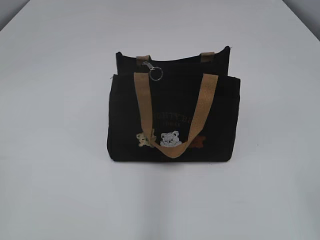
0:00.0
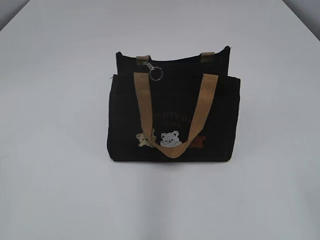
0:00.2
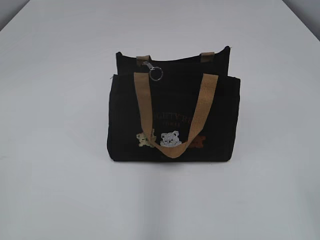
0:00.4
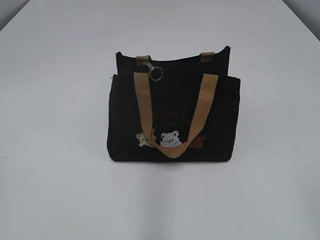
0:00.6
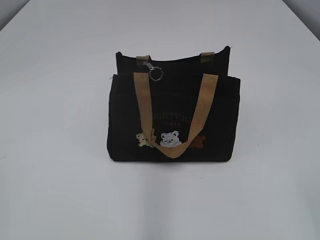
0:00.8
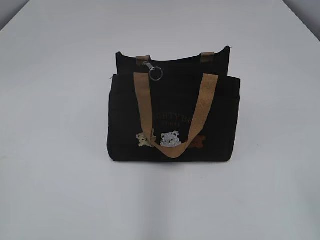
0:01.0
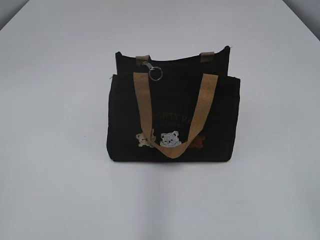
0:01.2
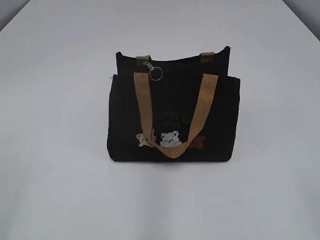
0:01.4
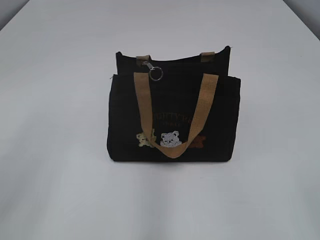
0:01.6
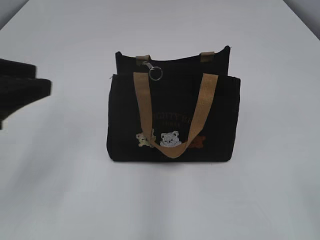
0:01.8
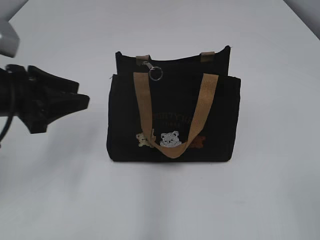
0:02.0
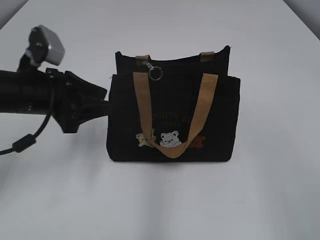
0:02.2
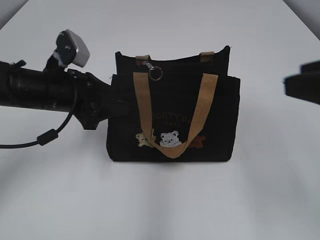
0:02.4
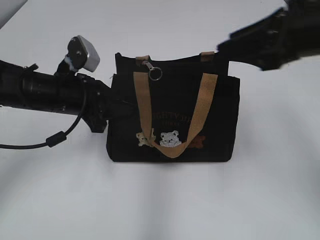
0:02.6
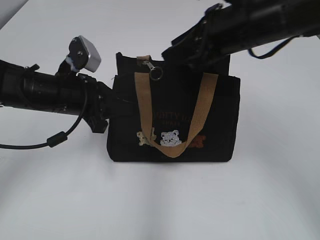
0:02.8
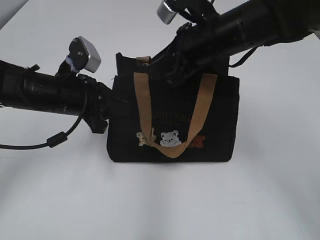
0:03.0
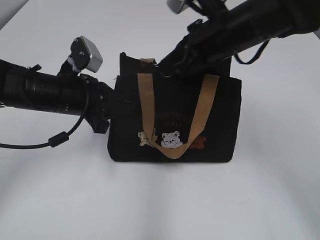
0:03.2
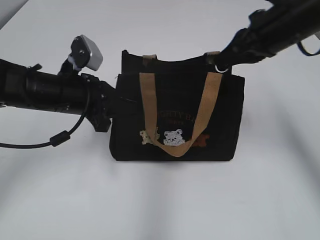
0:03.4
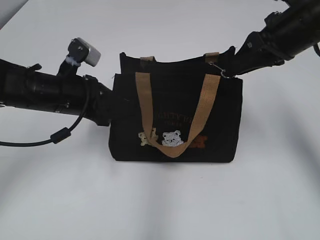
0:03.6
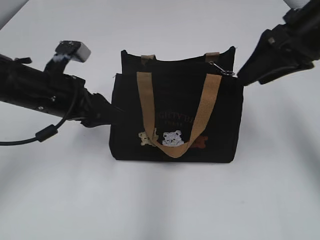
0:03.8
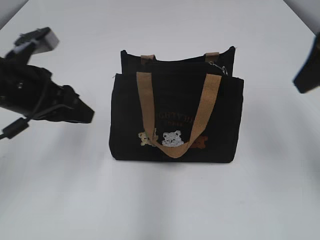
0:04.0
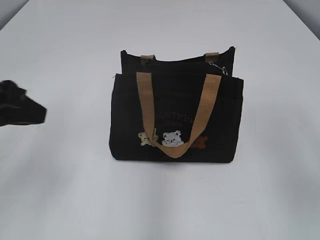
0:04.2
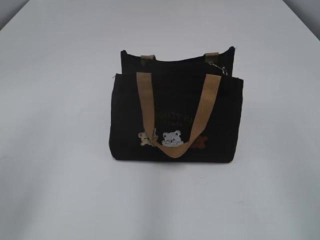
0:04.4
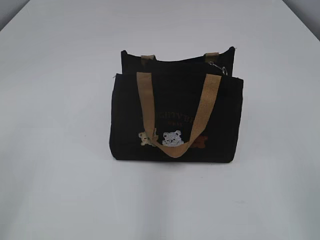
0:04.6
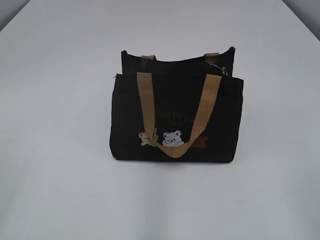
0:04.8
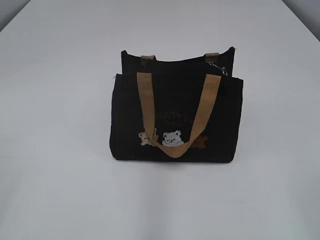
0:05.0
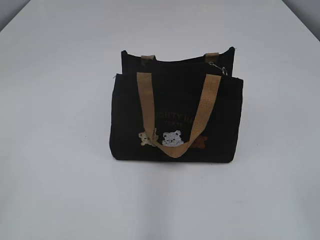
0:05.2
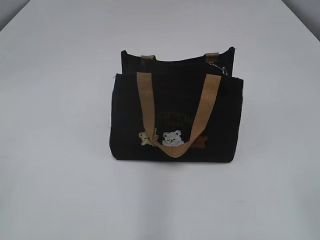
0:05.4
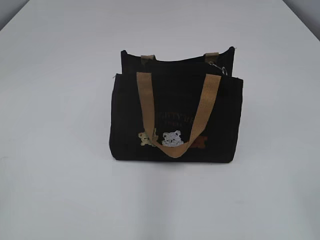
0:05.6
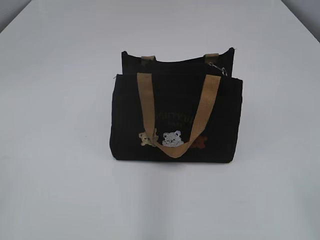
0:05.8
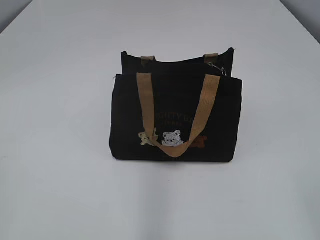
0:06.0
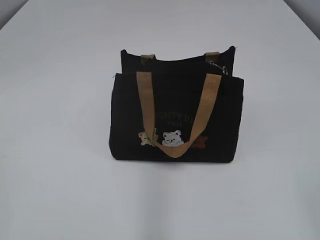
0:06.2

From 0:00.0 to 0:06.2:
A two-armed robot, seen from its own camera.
Step, from 0:00.0 to 0:03.4: Zip up the bag with your right hand.
From 0:01.6 to 0:03.2: The right gripper shifts about 40 cm forward and to the left, and closes; the left gripper is displaced forward, downward and to the right by about 35 cm, and closes up.
From 0:03.2 to 0:04.6: The left gripper heads backward, upward and to the left, covering approximately 30 cm, and opens up; the right gripper shifts roughly 30 cm backward and to the right, and opens.

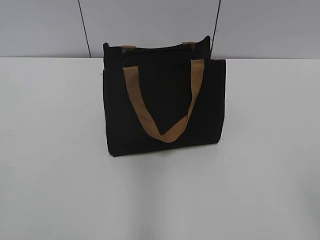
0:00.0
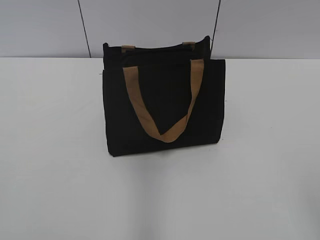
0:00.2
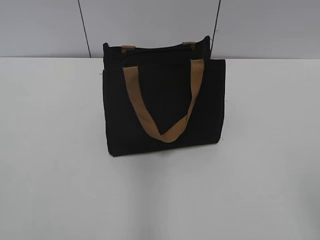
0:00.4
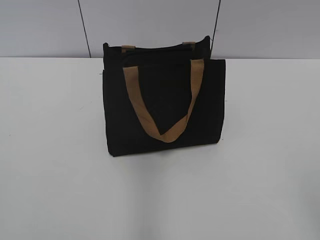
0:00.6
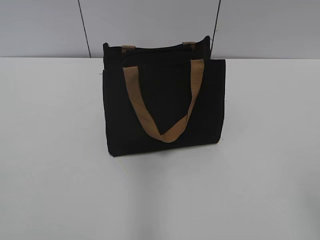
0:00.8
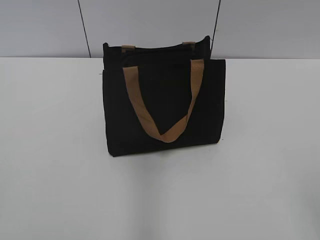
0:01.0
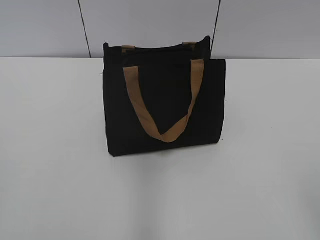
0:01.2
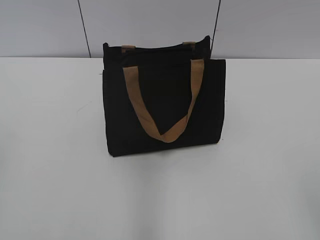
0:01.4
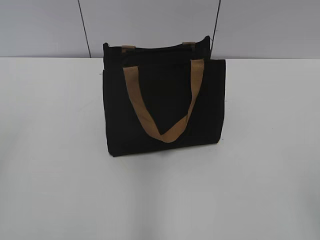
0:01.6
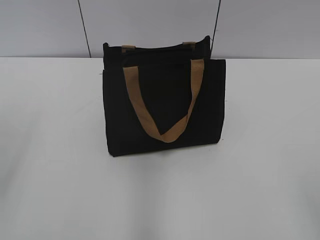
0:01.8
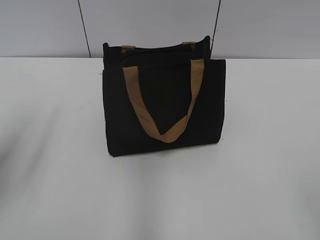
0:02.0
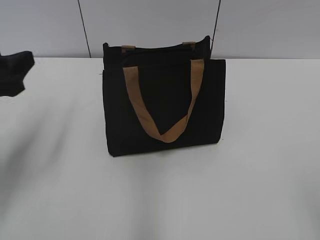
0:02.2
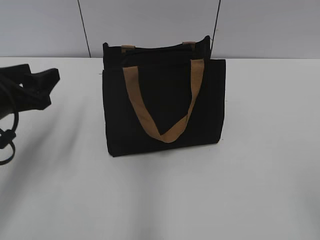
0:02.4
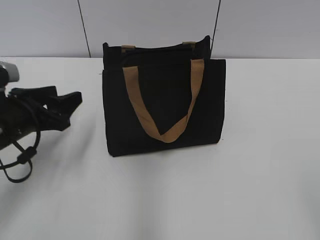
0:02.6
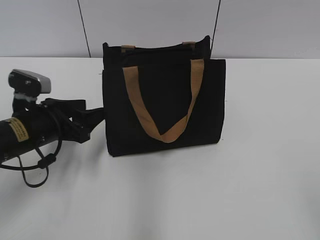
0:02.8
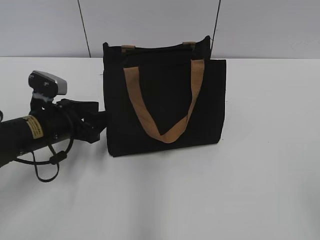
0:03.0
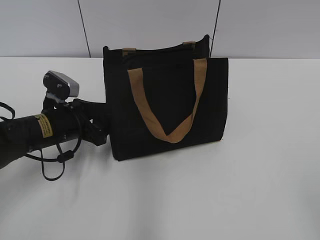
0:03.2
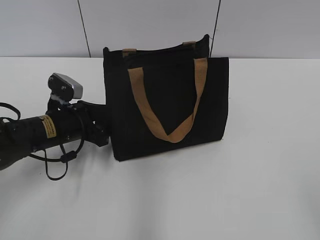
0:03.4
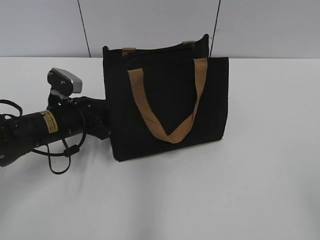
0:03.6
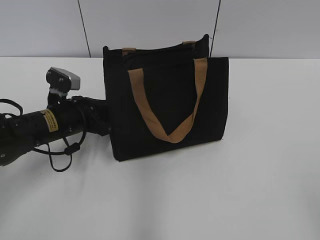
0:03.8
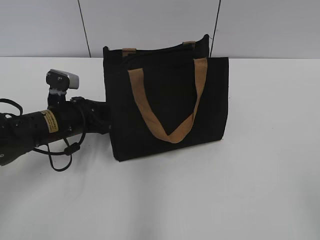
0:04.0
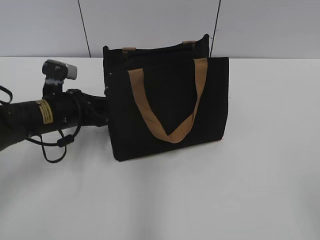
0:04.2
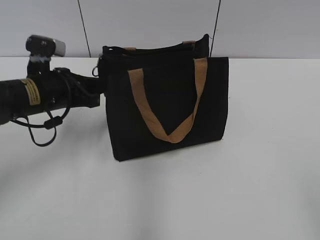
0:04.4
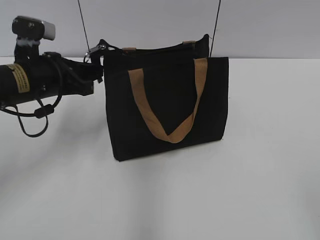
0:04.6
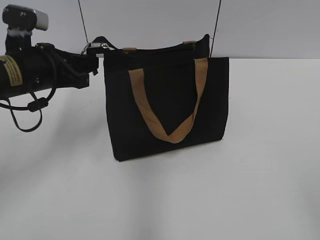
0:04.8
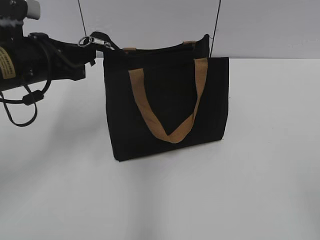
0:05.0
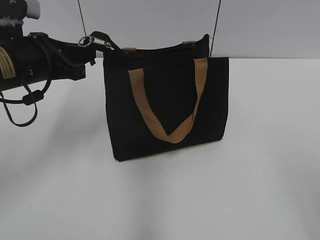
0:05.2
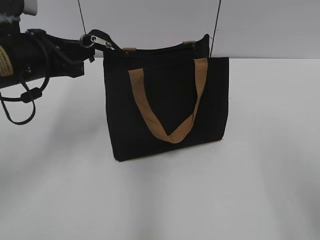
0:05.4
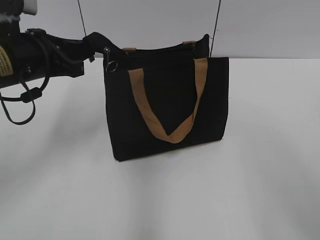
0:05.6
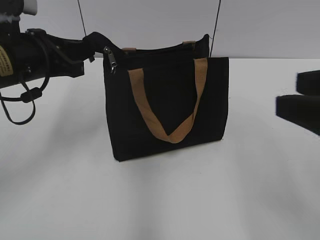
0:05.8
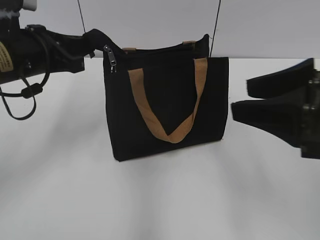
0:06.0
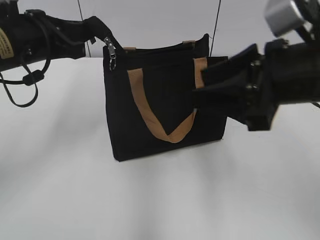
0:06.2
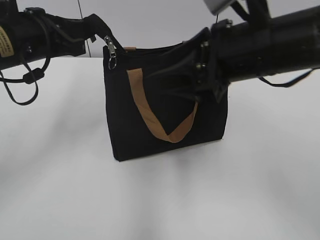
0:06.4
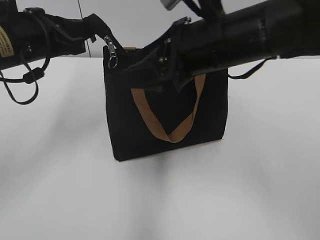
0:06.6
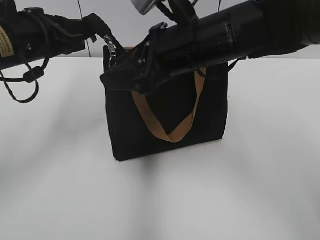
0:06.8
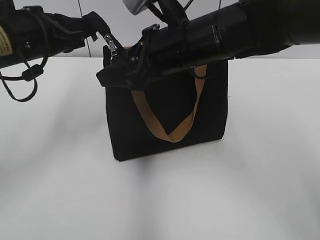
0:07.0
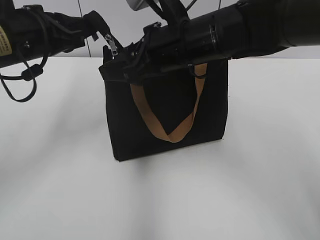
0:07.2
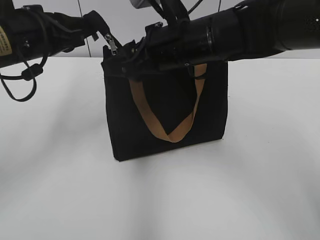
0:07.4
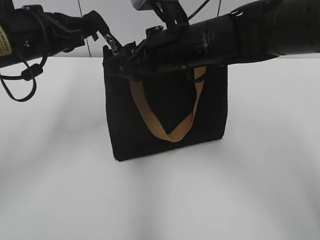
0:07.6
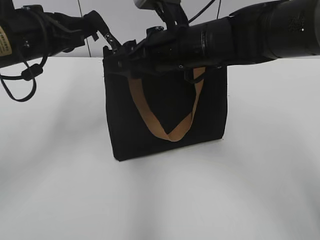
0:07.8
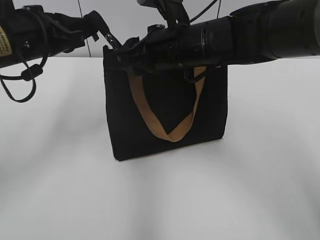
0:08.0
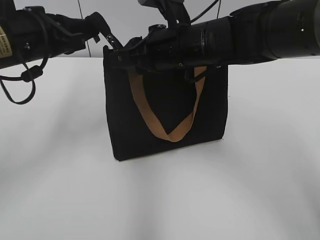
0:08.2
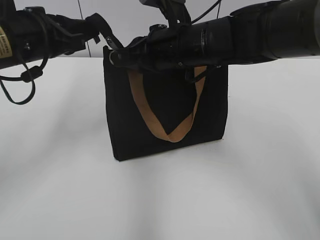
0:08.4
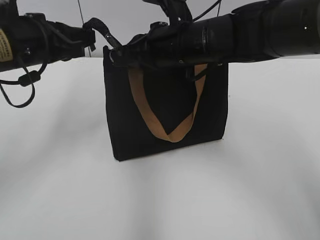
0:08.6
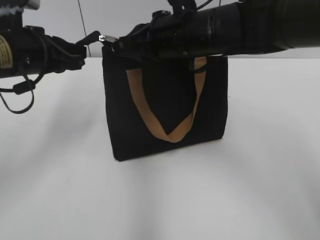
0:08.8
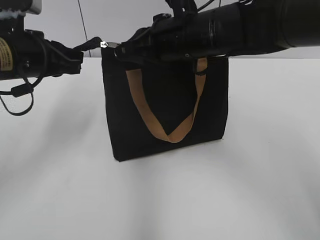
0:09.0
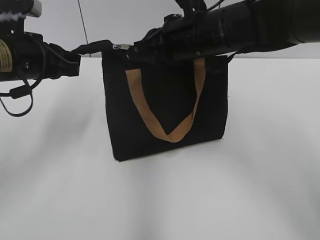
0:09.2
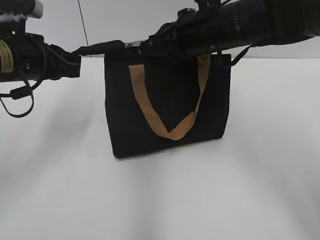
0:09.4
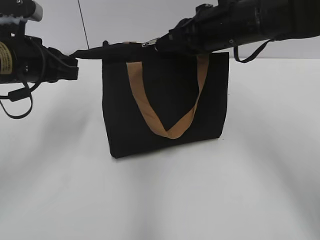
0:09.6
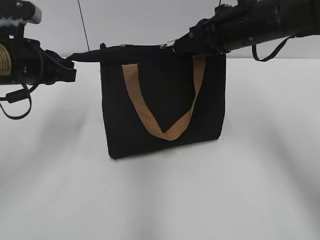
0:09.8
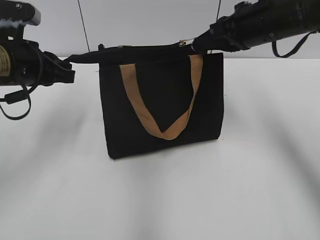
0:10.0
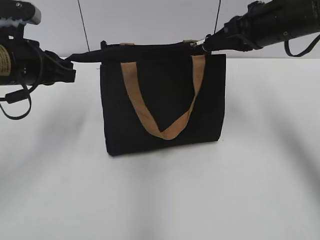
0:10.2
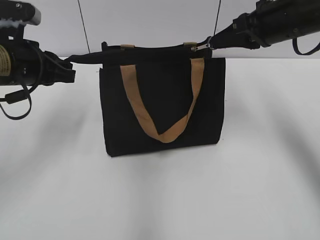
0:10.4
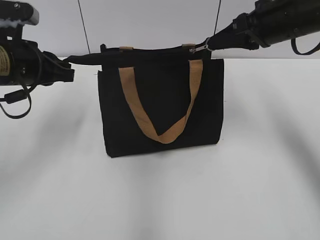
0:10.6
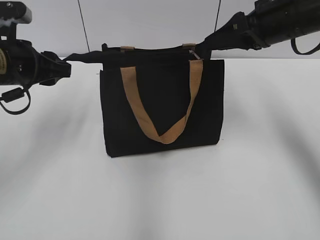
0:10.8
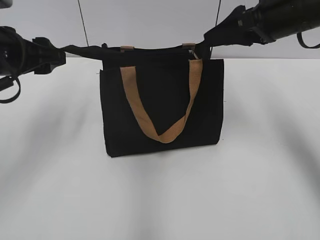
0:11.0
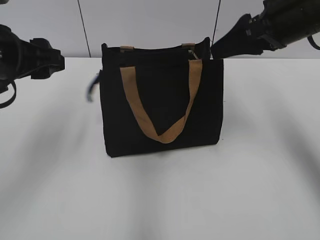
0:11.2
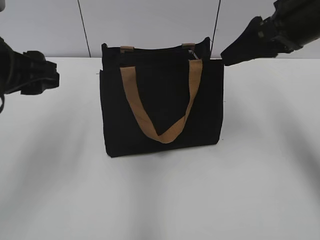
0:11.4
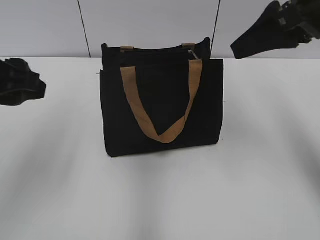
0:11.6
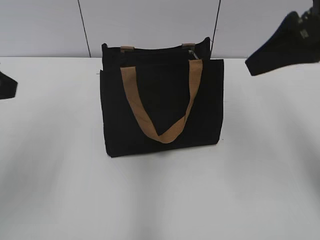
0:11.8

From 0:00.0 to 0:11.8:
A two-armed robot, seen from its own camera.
Step, from 0:00.0 to 0:10.6: Zip up the bag with your right hand.
Step, from 0:10.8 to 0:11.2: Grab the zipper with your left hand.
From 0:01.4 to 0:03.0: The left gripper travels forward, downward and to the right by approximately 35 cm.
From 0:03.0 to 0:04.4: The left gripper goes roughly 5 cm upward, and closes its fingers.
From 0:04.4 to 0:06.0: The right gripper is displaced forward by roughly 20 cm; the left gripper goes roughly 10 cm upward.
From 0:06.0 to 0:07.4: The right gripper travels to the left and forward by approximately 20 cm.
From 0:07.4 to 0:08.8: The right gripper closes up.
From 0:08.8 to 0:10.4: The right gripper shifts some 15 cm to the right.
From 0:10.4 to 0:11.8: The two grippers go some 15 cm backward and upward. The right gripper opens its fingers. The left gripper opens its fingers.

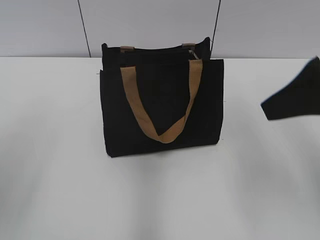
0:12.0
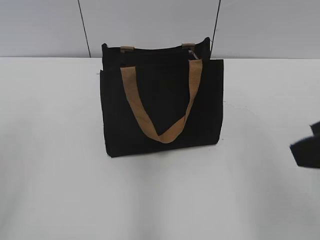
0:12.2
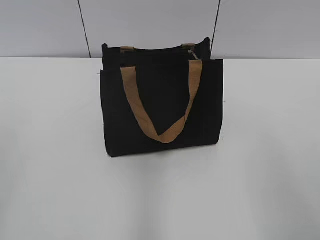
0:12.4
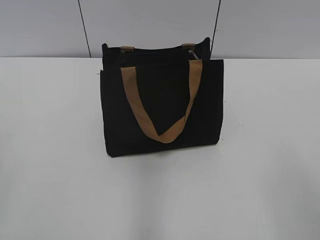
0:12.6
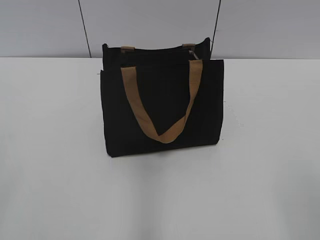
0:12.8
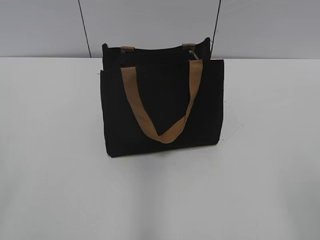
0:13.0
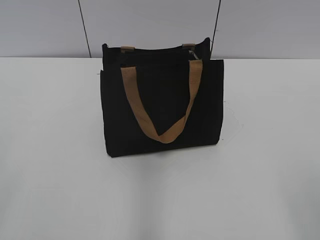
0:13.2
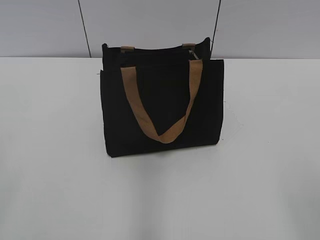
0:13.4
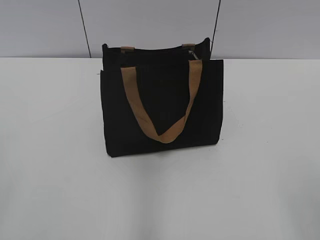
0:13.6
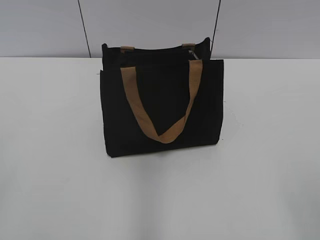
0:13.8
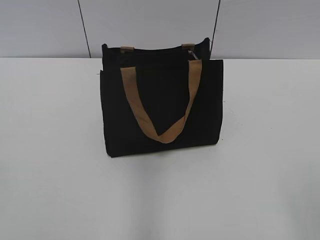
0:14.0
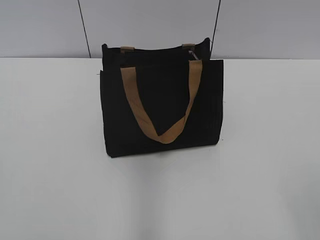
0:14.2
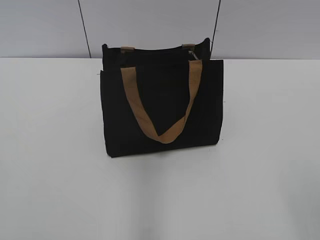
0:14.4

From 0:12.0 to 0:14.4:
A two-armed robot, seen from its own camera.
From 0:12.0 to 0:13.2: The right gripper shifts roughly 20 cm backward.

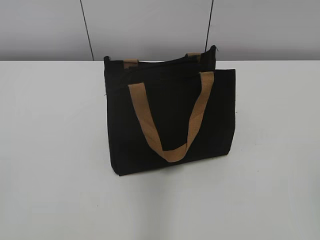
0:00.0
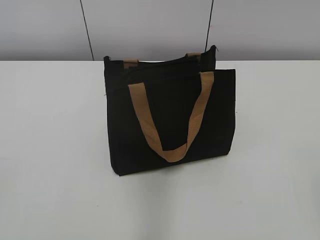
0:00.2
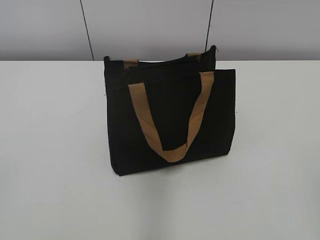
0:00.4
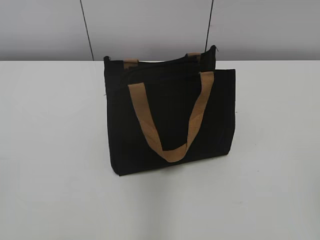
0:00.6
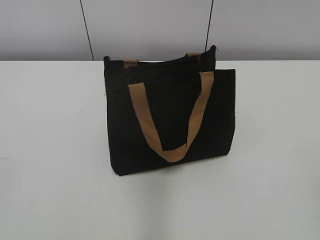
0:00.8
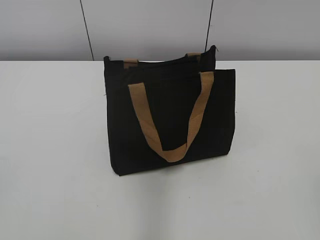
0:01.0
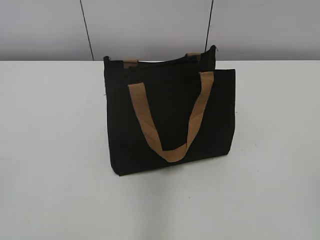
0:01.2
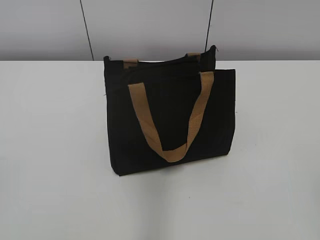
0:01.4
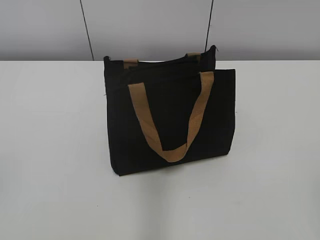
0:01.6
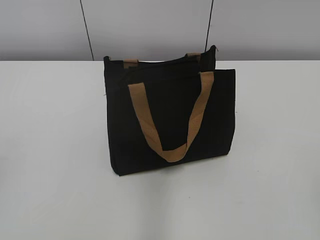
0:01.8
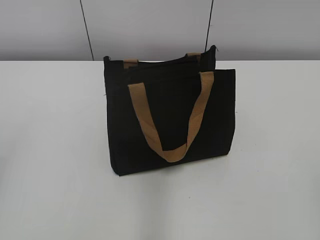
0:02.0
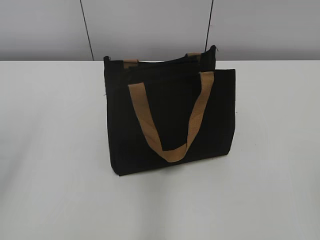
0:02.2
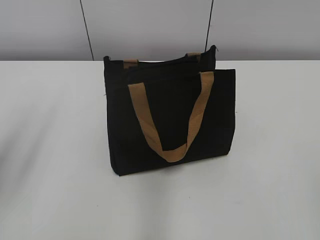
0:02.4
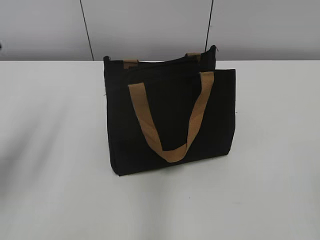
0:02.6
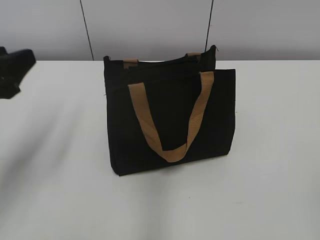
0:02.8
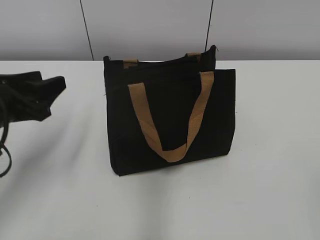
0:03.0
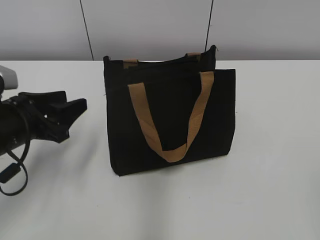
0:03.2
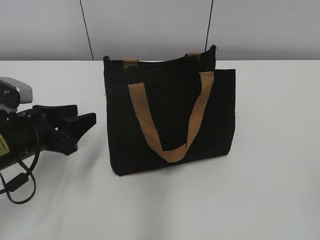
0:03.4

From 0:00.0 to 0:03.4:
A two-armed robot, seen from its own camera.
From 0:01.6 to 0:03.4: The left gripper moves forward, downward and to the right, about 30 cm.
